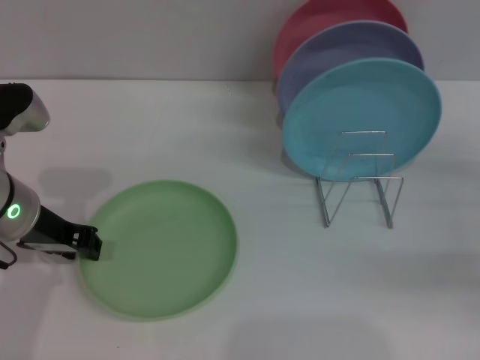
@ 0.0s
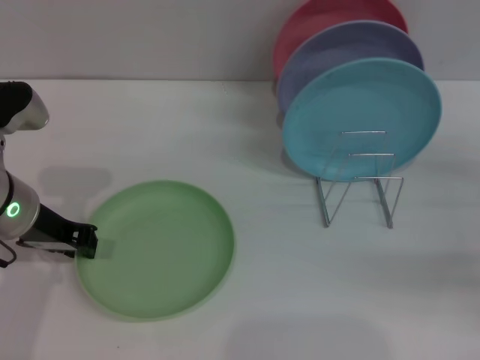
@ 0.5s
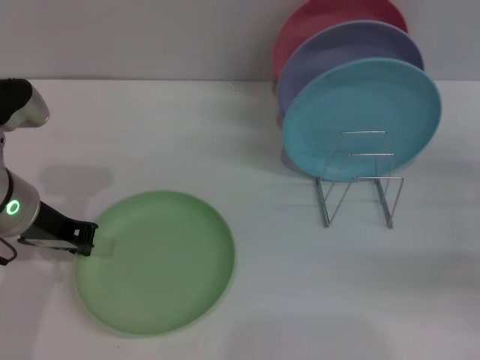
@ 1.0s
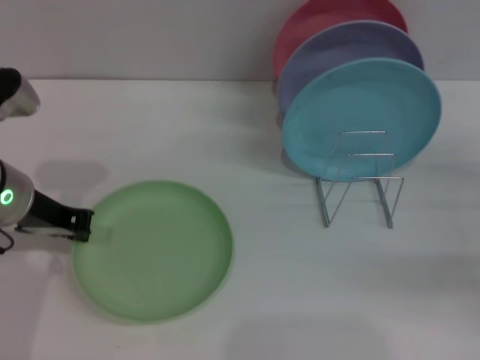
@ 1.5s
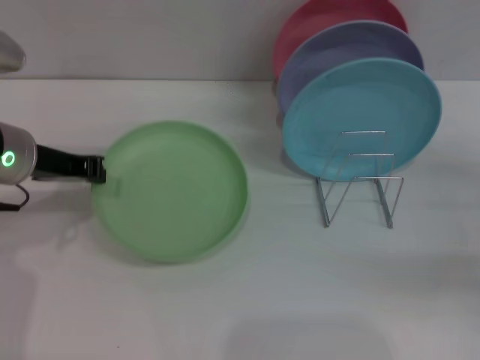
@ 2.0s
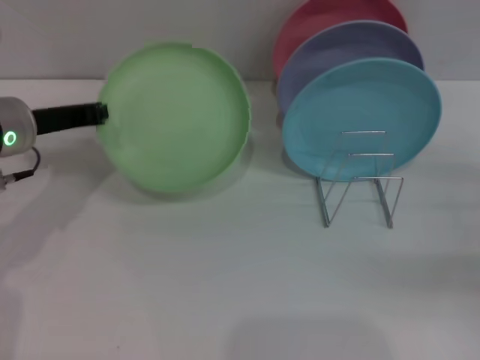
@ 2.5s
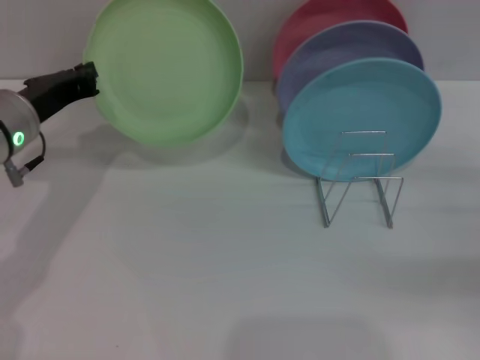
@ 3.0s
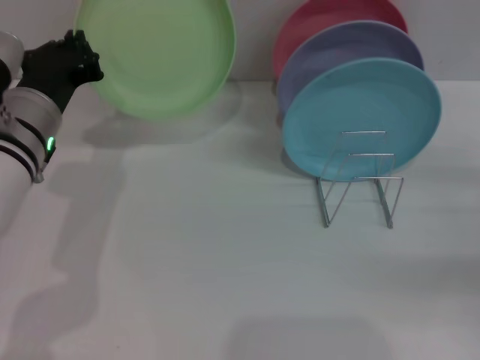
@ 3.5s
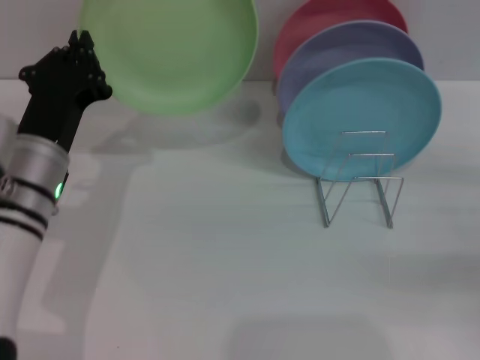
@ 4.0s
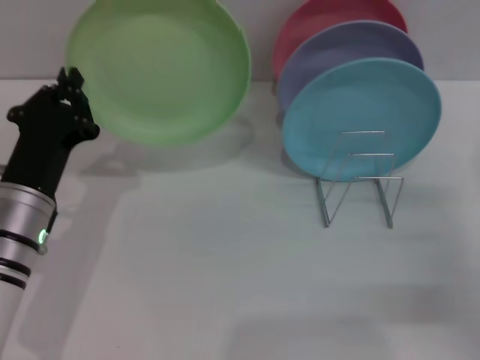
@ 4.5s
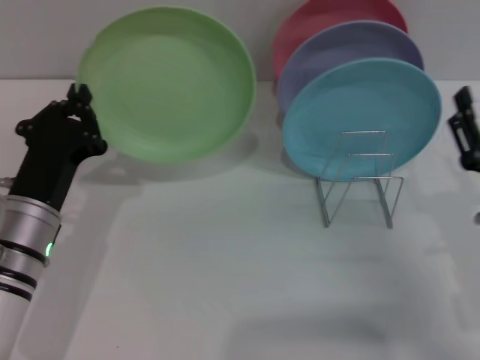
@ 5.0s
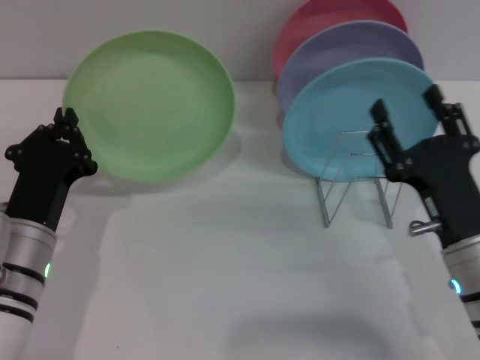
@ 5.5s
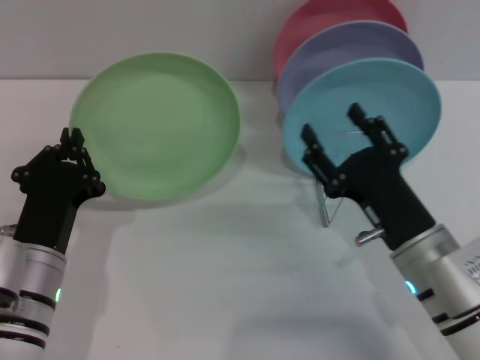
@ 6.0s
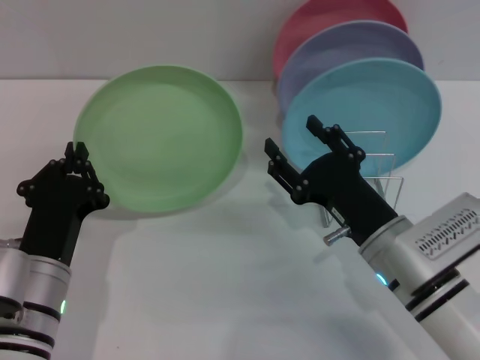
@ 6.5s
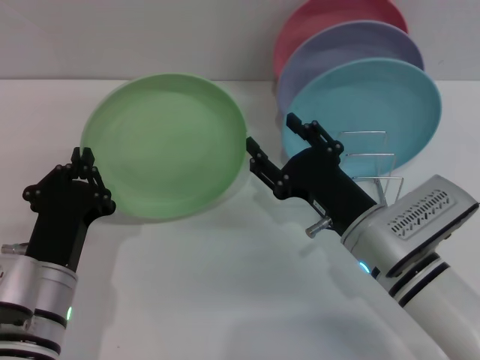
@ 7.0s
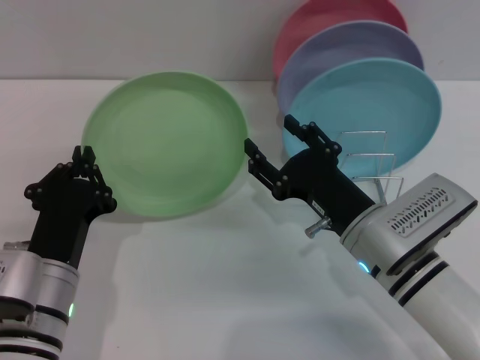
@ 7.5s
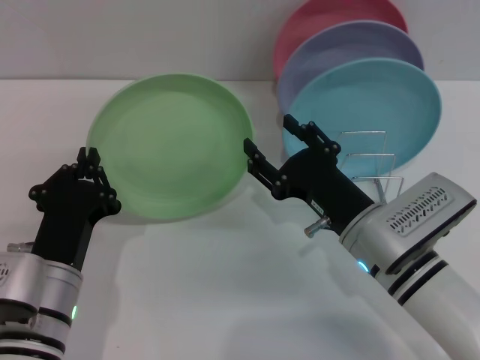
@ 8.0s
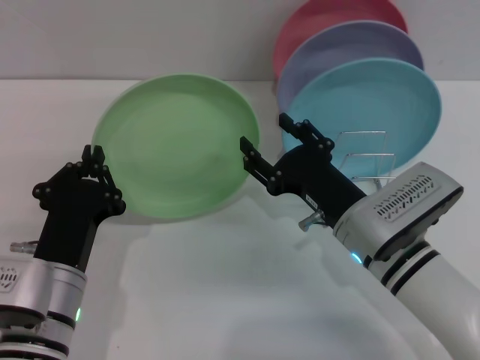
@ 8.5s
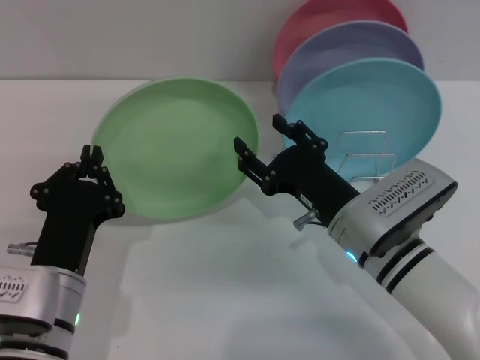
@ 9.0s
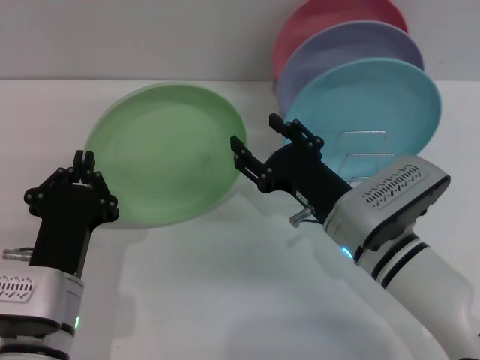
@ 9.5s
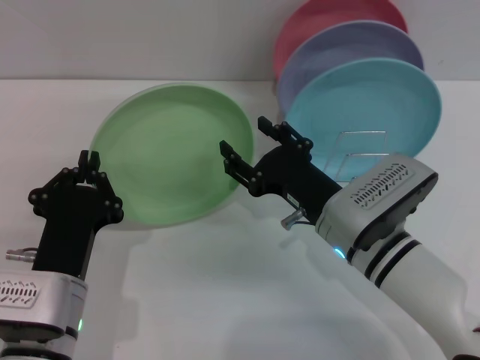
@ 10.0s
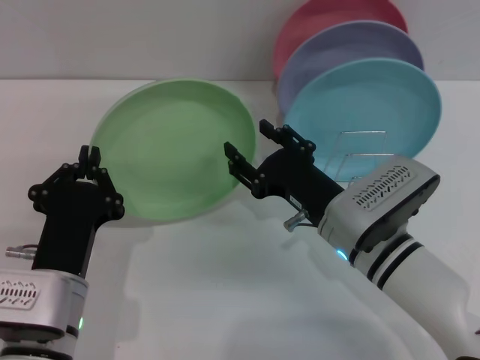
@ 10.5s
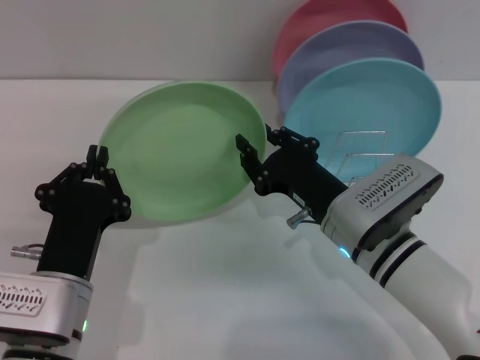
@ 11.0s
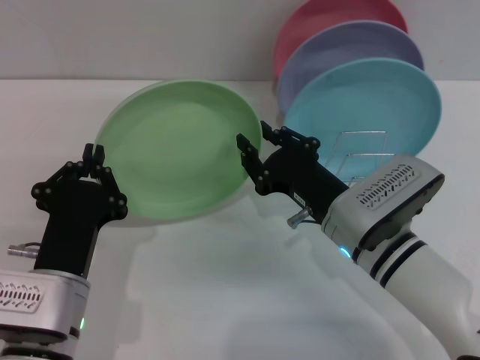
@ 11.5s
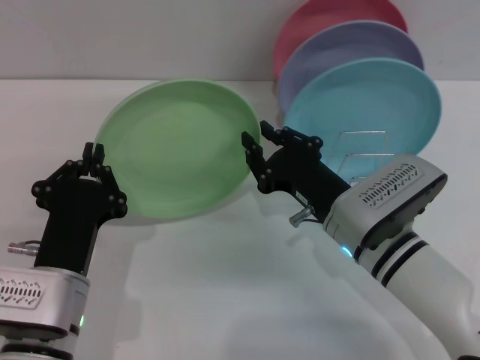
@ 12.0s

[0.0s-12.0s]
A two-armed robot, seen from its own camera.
Task of the whole recording: Grip the plate with one hand, pass it to the other, then set it on the shelf.
Step, 0.0s to 2.0s: Pick up the plate with the left gripper.
0.0s to 2.0s: The left gripper closes up.
2.0s to 4.0s: The left gripper moves downward, about 5 cm.
4.0s to 6.0s: The right gripper is displaced to the left by roughly 20 cm. Meanwhile the left gripper moves backward and downward, approximately 10 cm.
8.0s to 10.0s: There are only small adjustments of the grippers.
10.0s to 12.0s: The right gripper closes up.

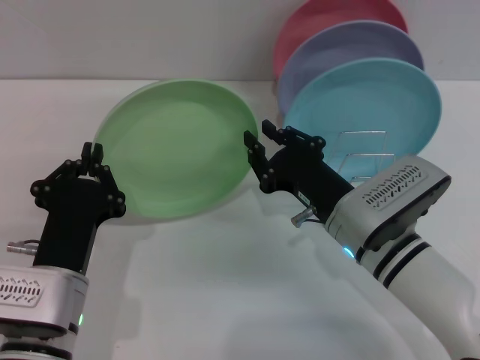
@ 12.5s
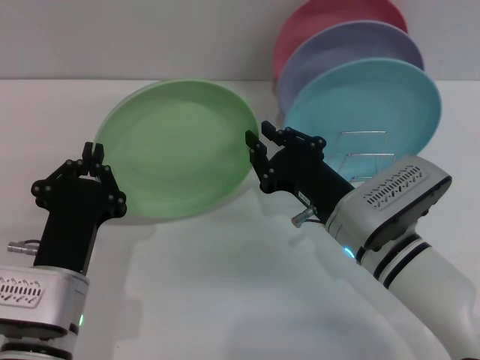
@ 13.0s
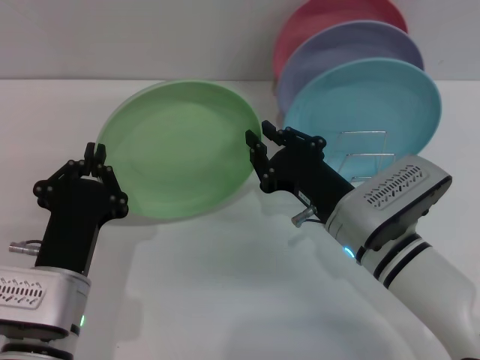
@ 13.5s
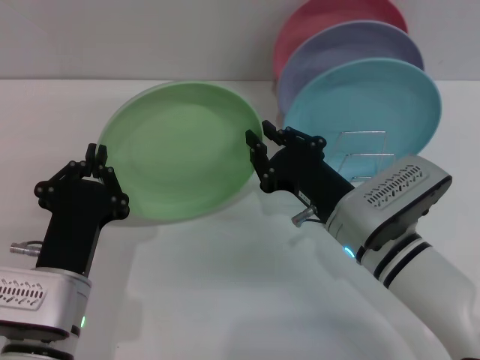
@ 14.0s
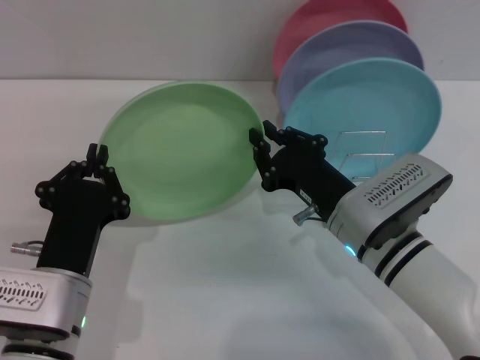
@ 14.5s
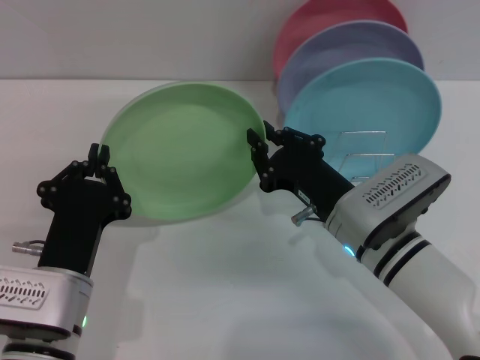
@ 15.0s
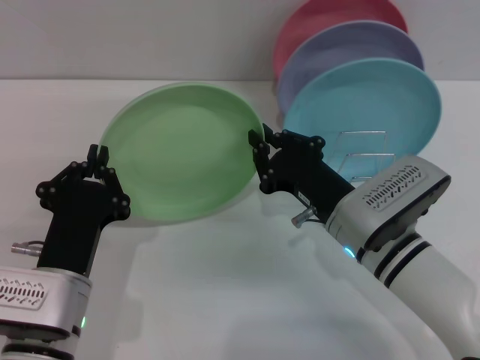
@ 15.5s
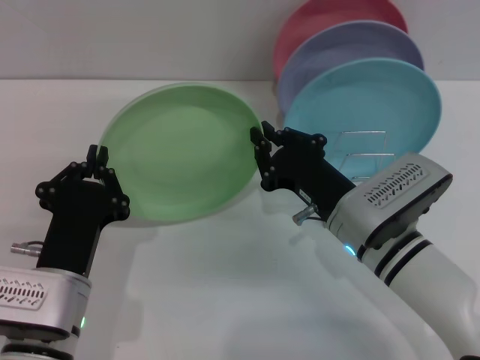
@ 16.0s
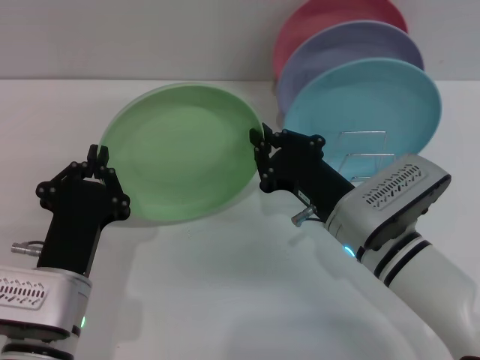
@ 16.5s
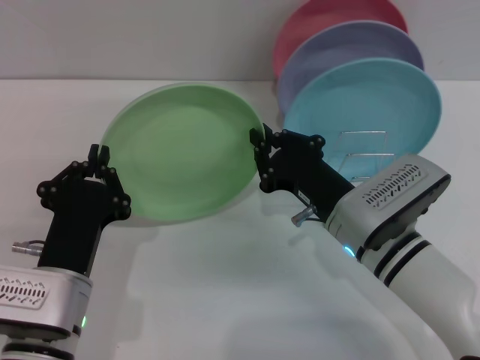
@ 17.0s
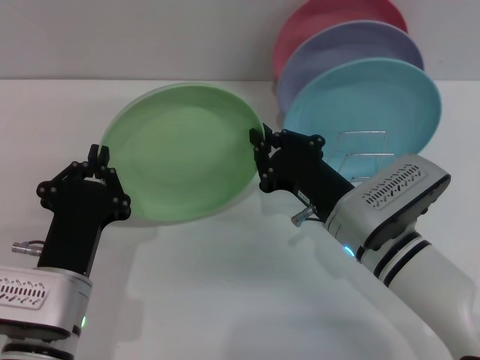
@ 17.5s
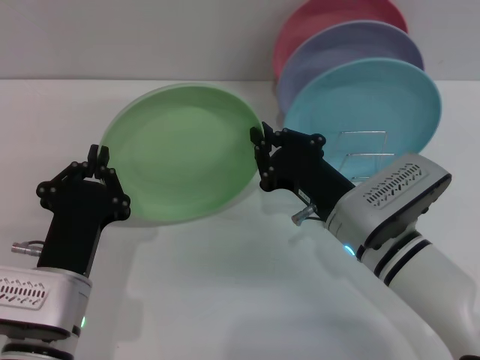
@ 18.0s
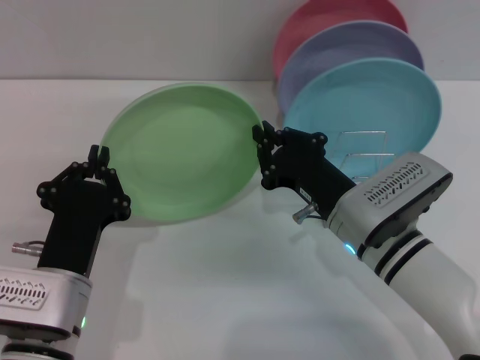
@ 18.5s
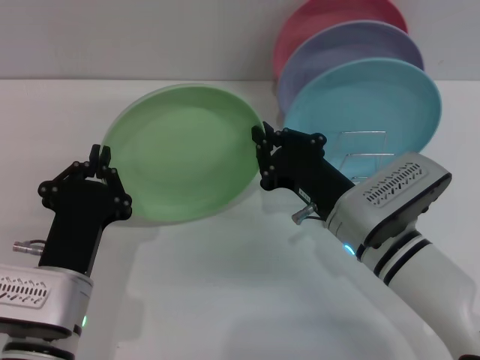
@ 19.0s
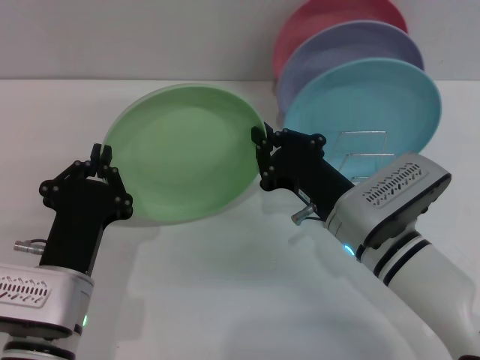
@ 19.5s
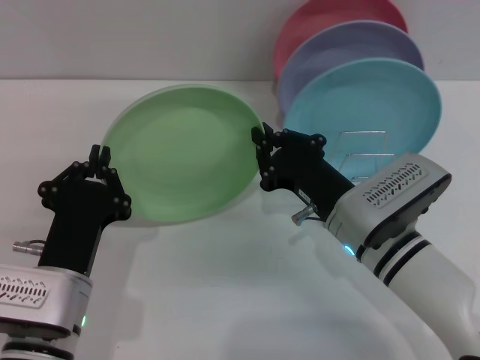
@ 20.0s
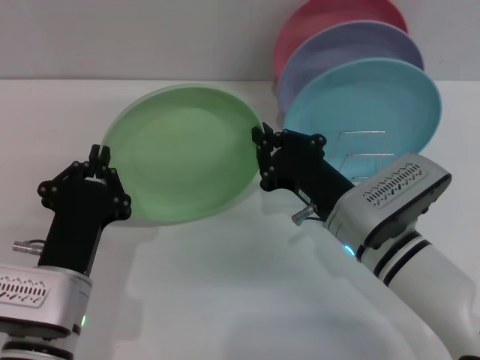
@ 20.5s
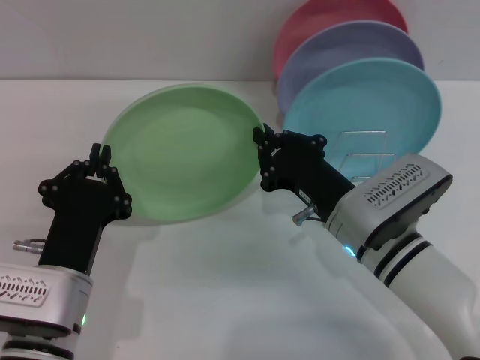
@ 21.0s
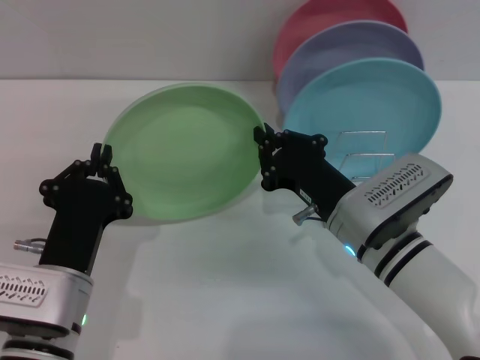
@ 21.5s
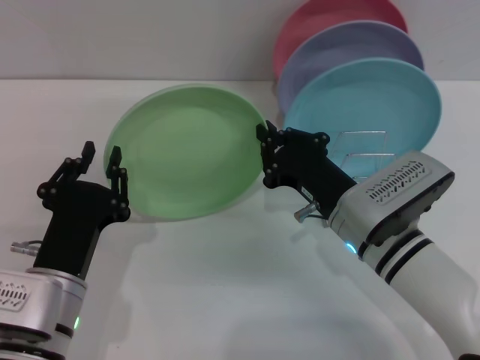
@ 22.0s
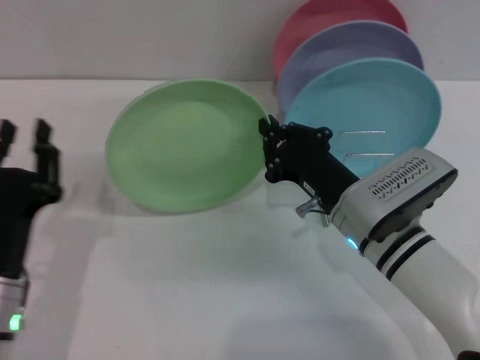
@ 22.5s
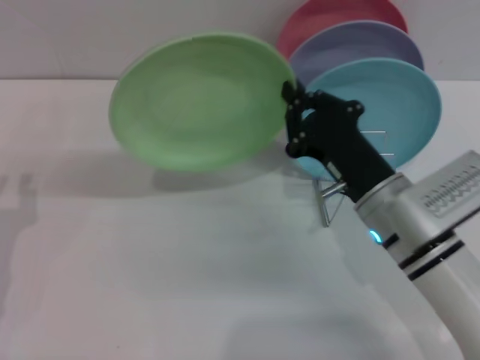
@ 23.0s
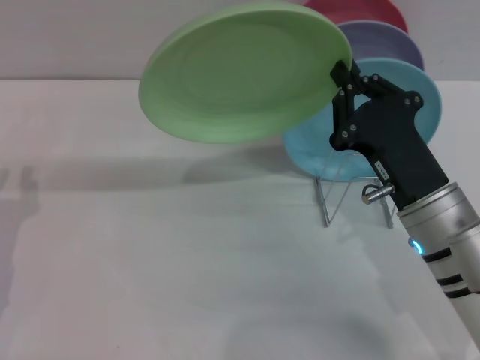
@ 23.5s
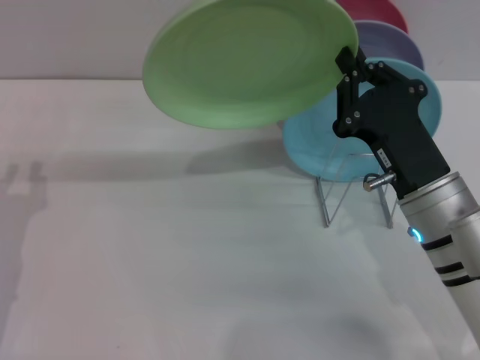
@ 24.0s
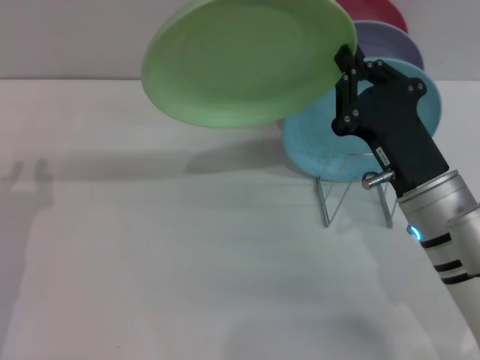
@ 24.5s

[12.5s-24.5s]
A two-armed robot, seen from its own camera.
Task of the whole recording: Grip the plate with one hand, pass it to the other, then set it on the shelf.
Step, 12.5s to 22.5s: Pass the plate from the left gripper to the right gripper.
12.5s to 20.5s: The two grippers keep their place.
20.5s to 22.5s: The left gripper opens up.
22.5s to 24.5s: The left gripper is displaced to the left by approximately 5 cm; the right gripper changes place by approximately 5 cm.

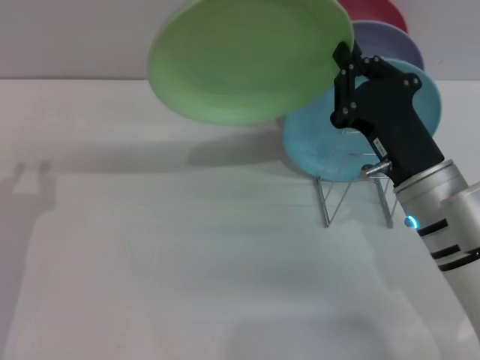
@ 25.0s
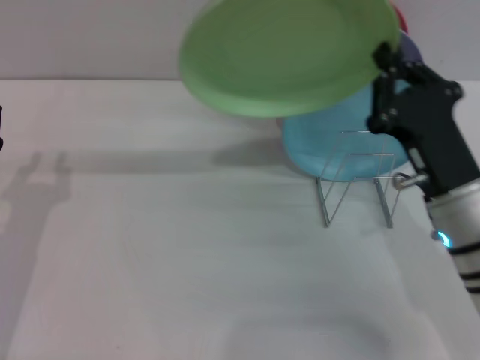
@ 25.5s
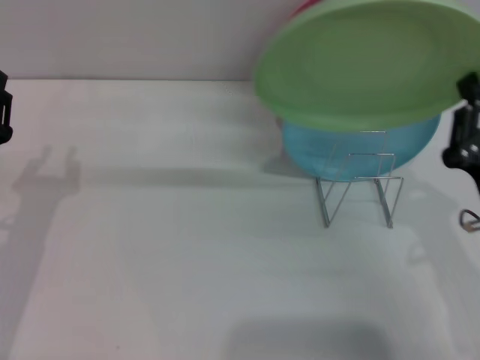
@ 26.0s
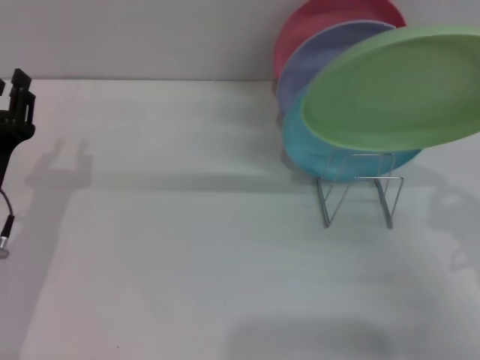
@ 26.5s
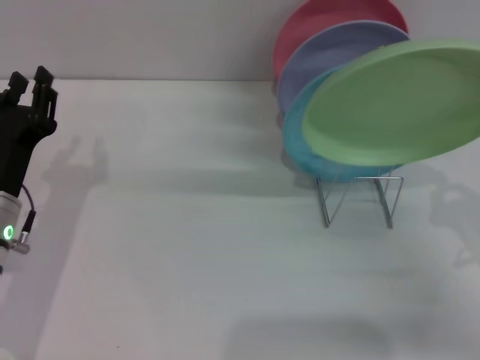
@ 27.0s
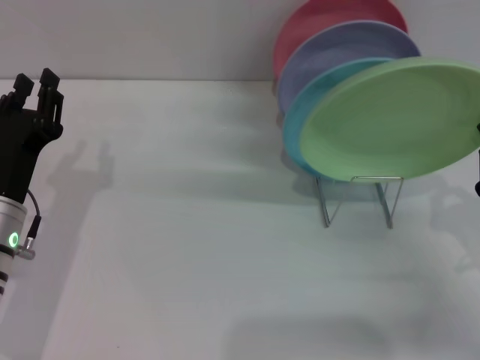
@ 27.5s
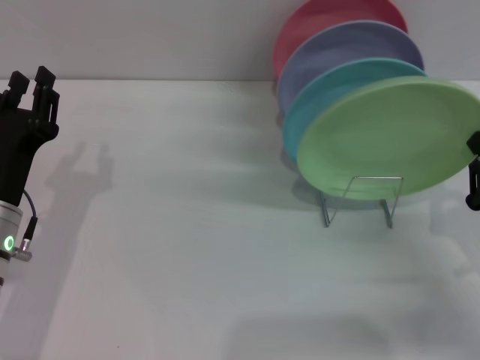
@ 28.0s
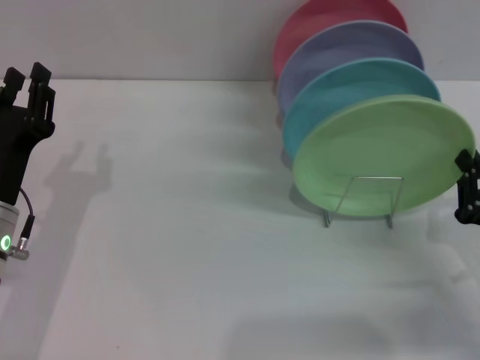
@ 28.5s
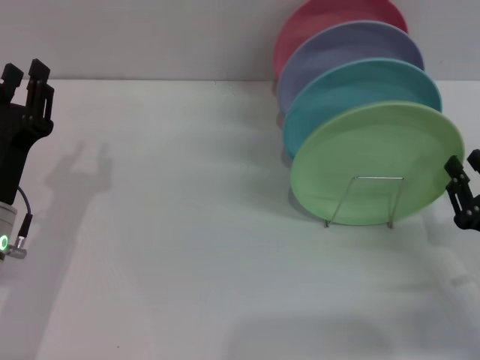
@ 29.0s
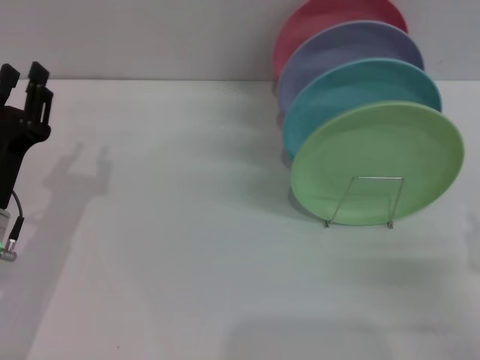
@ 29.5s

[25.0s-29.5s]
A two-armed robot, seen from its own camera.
Task of the whole recording: Grip the plate with one hand, pass it to the other, then set it on the shelf.
Step, 25.0s to 28.5s: Place the plate on the shelf with the right gripper.
25.0s to 27.0s: The left gripper changes place by roughly 5 cm, while the right gripper goes about 15 cm to the right and backward.
27.0s to 29.5s: The right gripper travels backward by some 5 cm, and opens its fingers.
